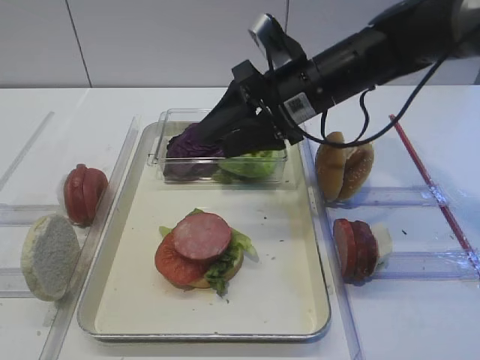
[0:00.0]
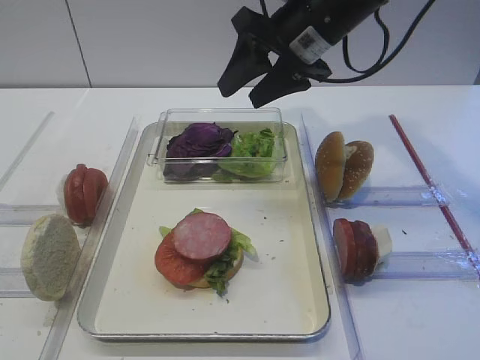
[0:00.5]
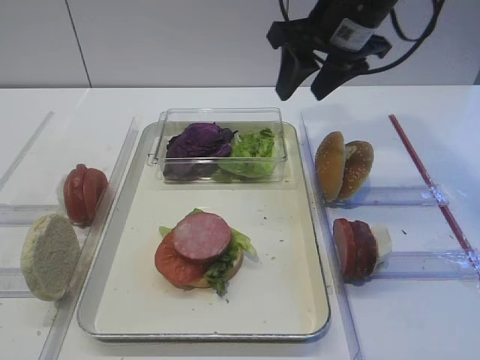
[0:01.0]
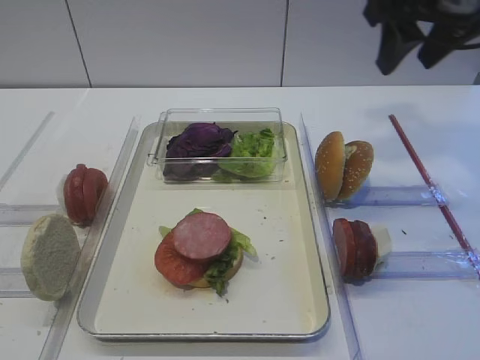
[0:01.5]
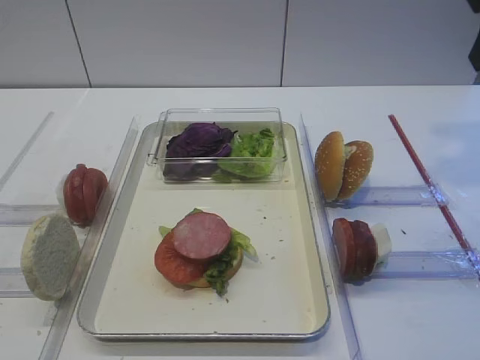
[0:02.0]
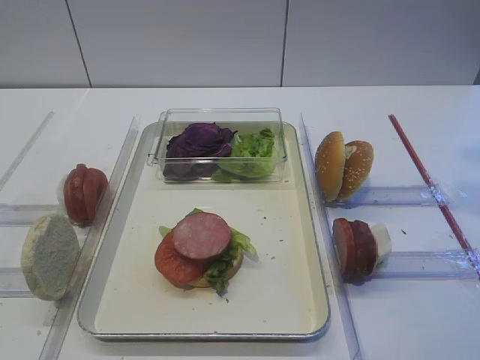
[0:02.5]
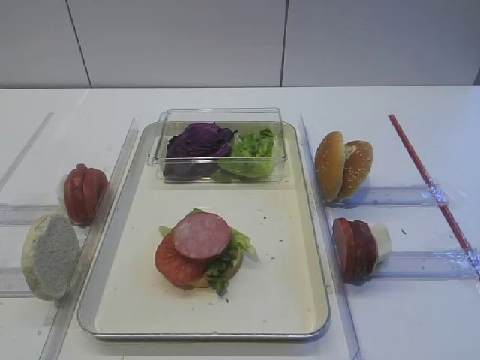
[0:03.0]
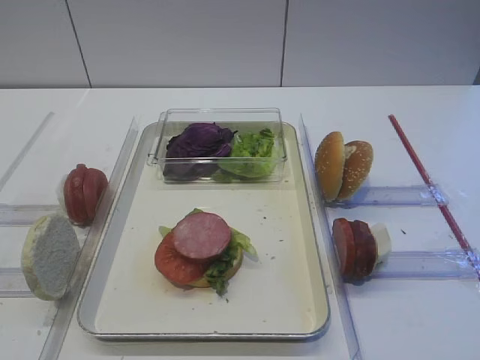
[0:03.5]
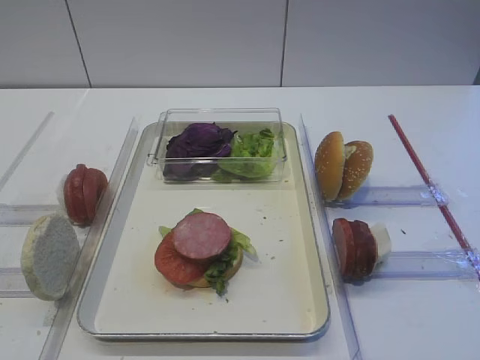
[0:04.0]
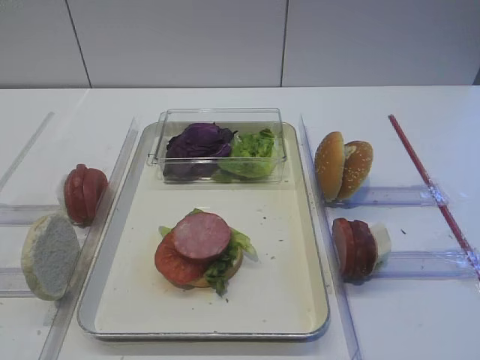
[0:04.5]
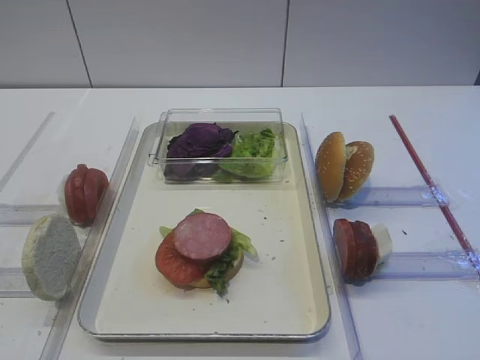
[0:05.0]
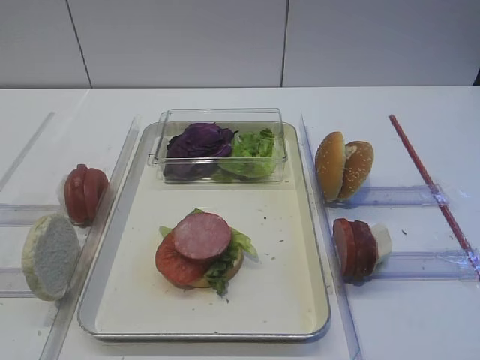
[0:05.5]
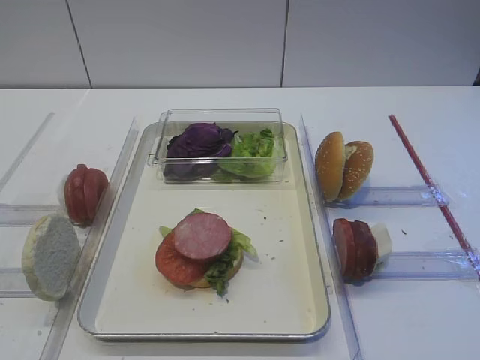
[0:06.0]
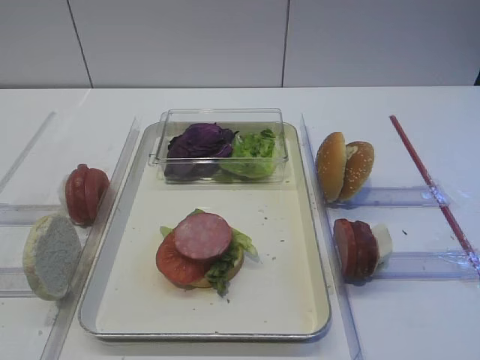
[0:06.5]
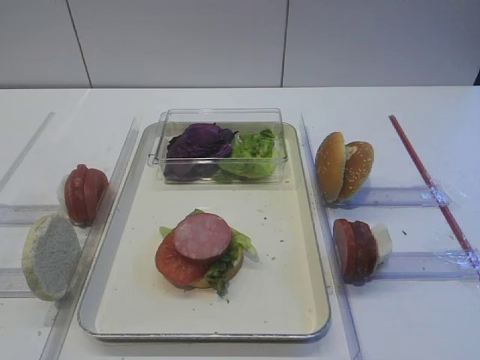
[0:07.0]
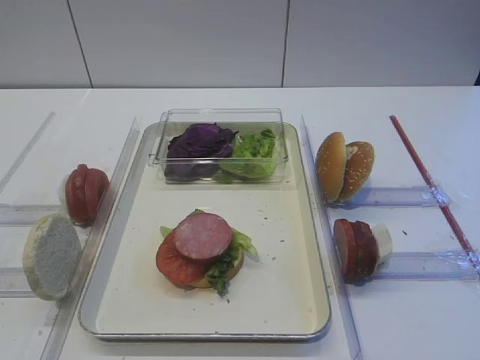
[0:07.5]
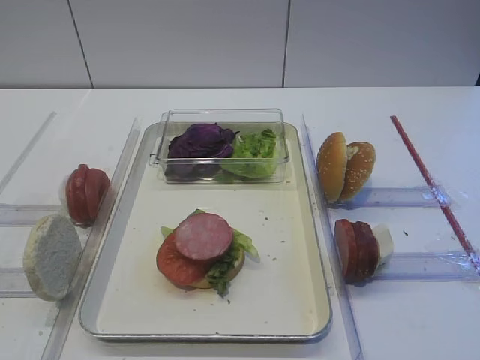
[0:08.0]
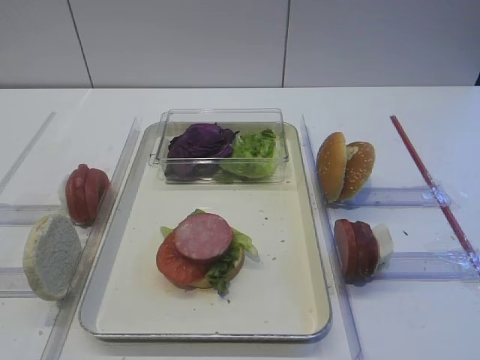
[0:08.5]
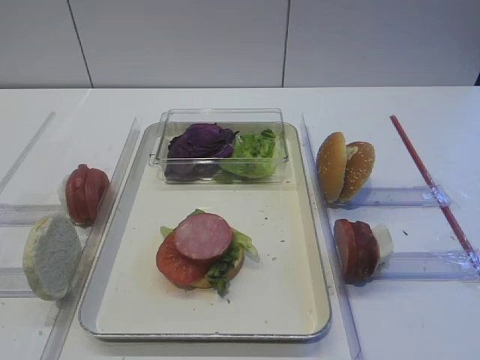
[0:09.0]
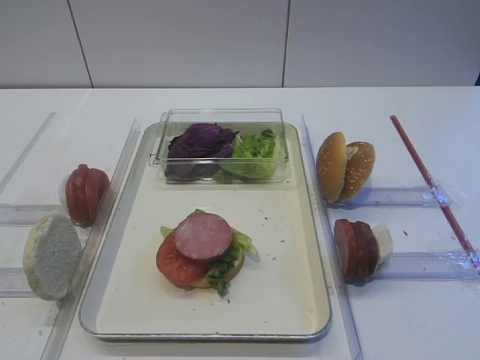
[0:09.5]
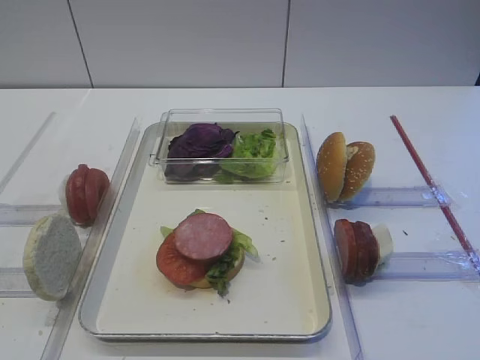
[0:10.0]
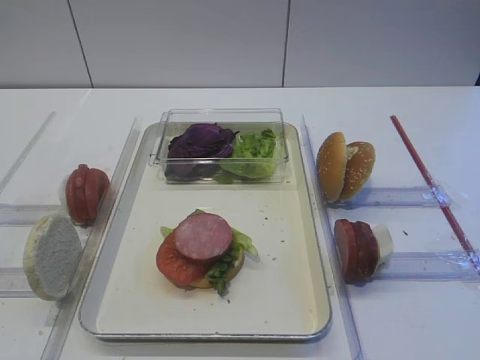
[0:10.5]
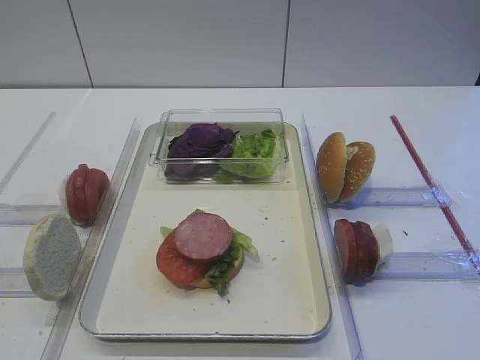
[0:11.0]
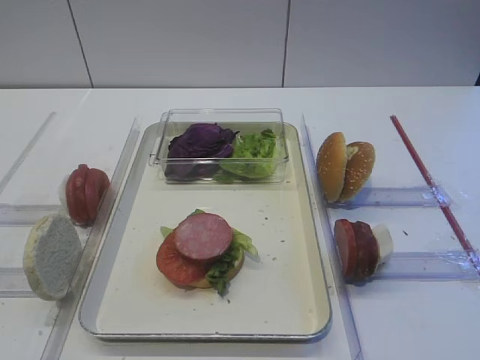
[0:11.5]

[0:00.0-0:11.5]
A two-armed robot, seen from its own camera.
0:00.0 to 0:02.0: The right gripper heads to the right, upward and backward, covering about 25 cm.
0:06.0 to 0:11.5: Both grippers stay put.

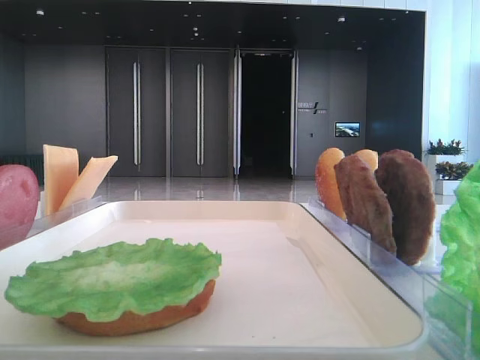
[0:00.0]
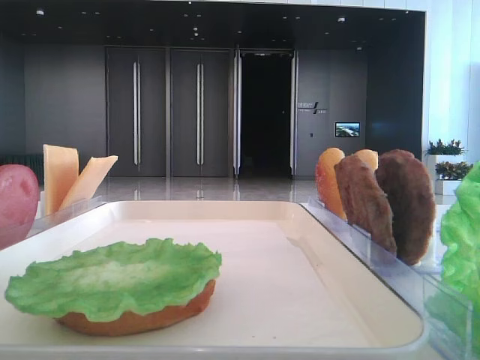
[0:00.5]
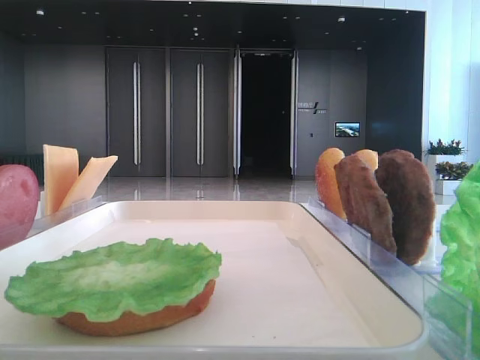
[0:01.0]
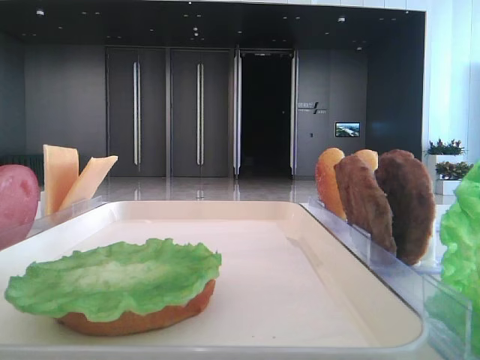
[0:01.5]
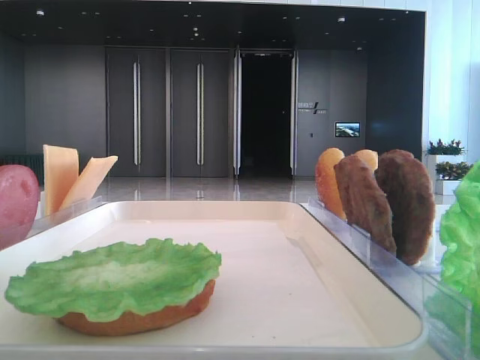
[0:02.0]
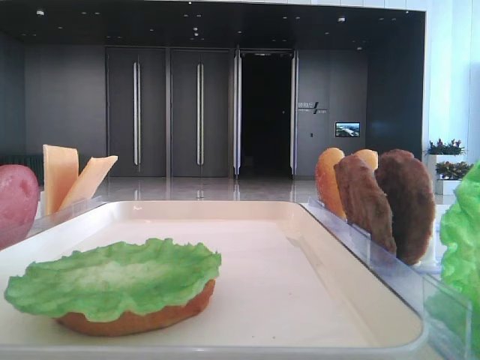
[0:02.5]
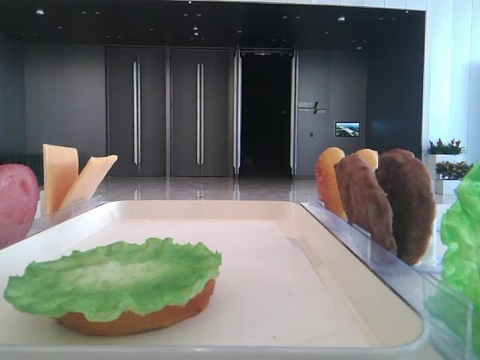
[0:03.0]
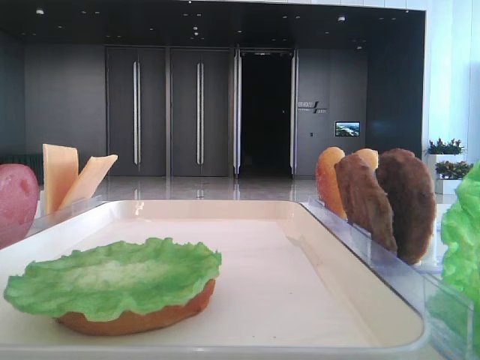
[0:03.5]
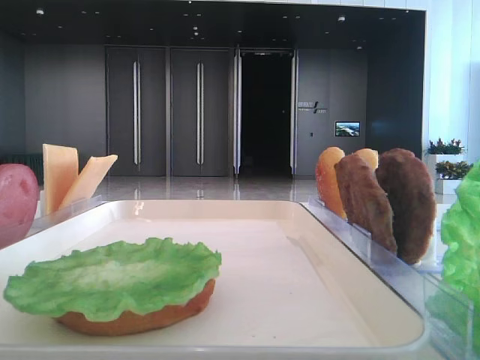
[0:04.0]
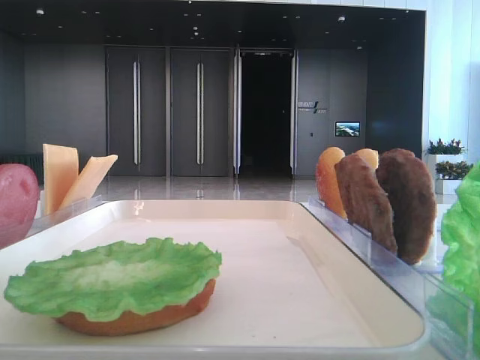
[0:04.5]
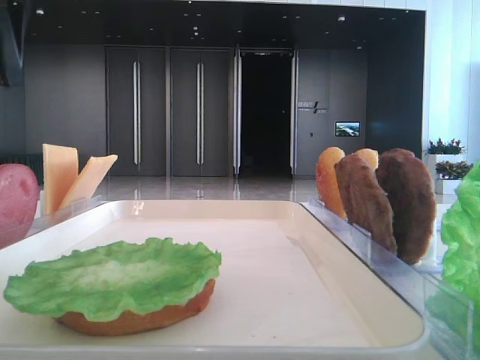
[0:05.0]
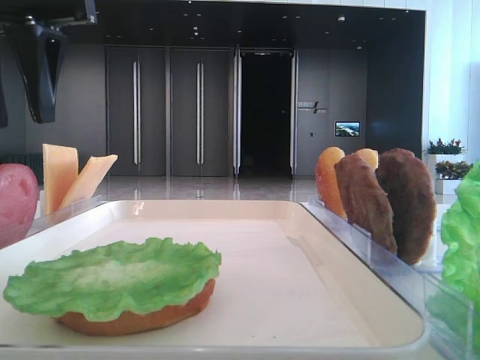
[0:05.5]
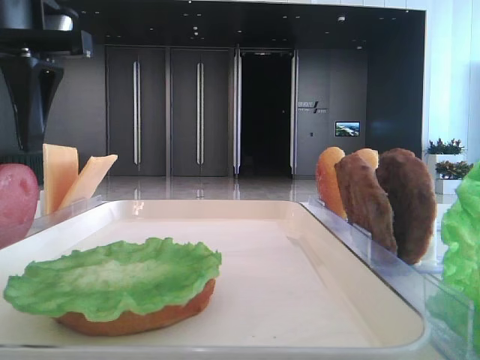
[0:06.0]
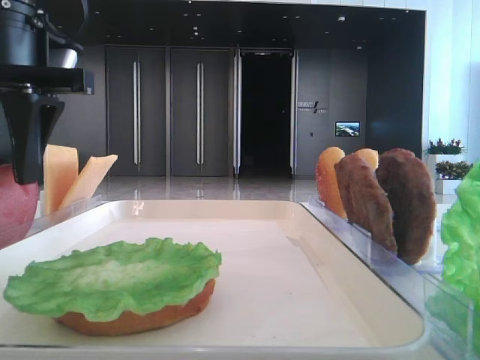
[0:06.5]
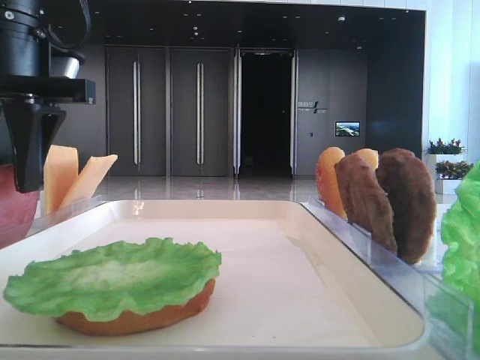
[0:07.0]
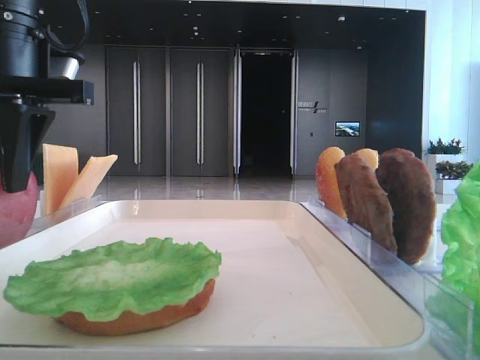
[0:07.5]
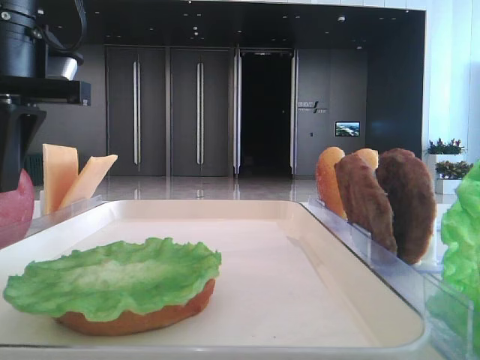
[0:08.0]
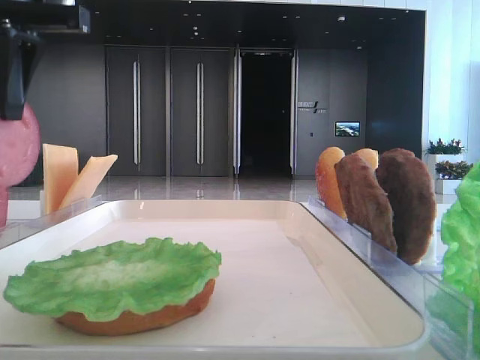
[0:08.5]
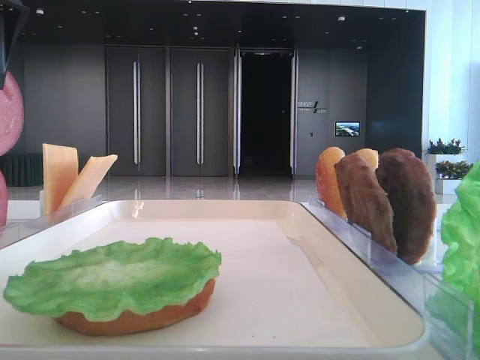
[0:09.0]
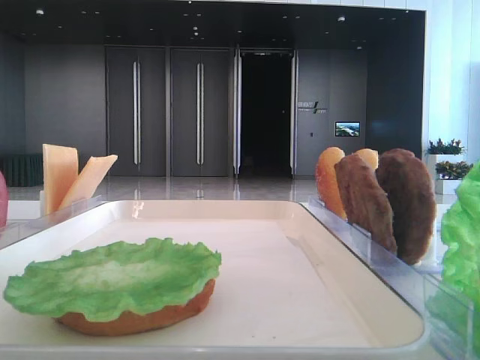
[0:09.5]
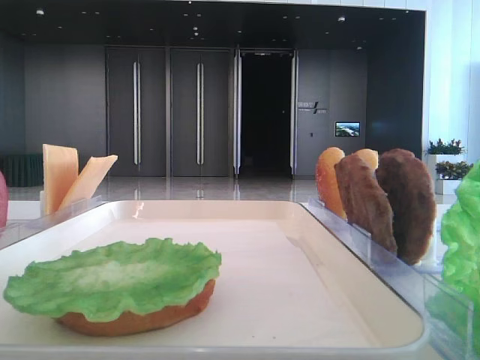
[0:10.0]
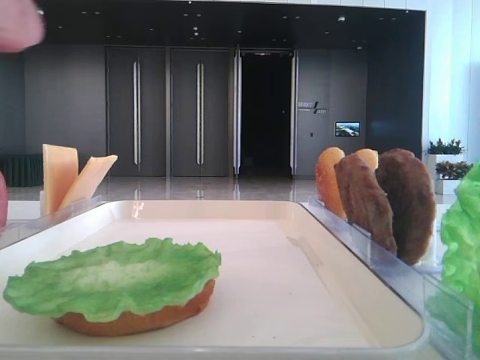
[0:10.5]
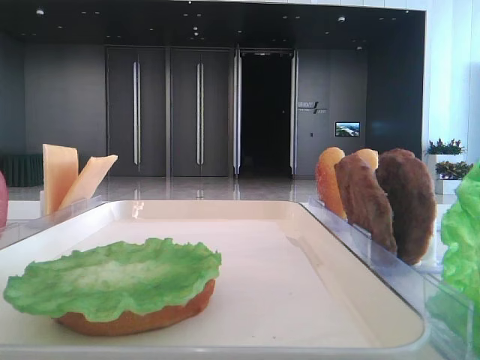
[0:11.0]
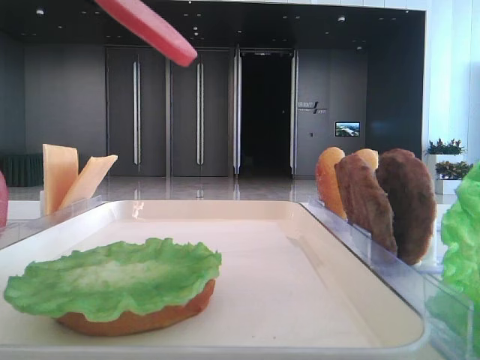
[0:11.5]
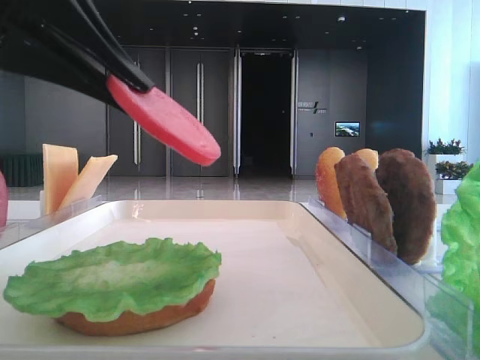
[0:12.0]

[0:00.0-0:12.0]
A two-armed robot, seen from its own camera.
Step, 0:00.0 to 0:07.5: Pick up the tomato slice with the left hand.
0:02.0 to 0:04.0: The left gripper travels forward by approximately 30 cm.
0:04.0 to 0:06.0: The left gripper moves to the right and downward, some 15 cm.
0:06.0 to 0:08.0: The left gripper closes up.
0:08.0 to 0:10.0: The left gripper shifts roughly 20 cm backward and upward.
0:10.0 to 0:12.0: The left gripper travels downward and to the right by roughly 15 cm.

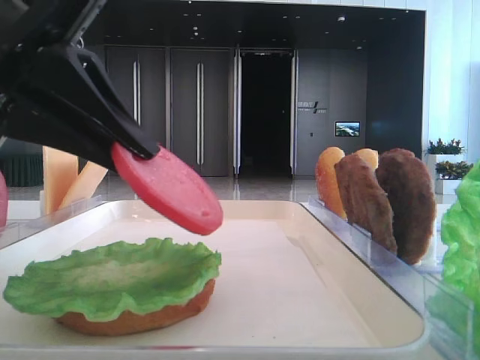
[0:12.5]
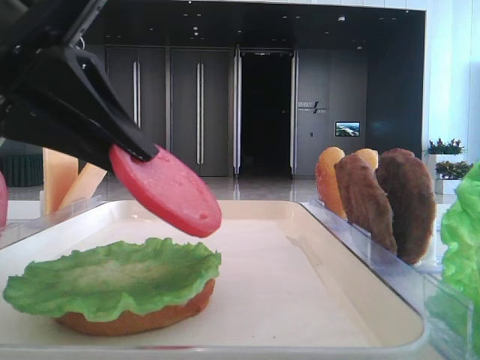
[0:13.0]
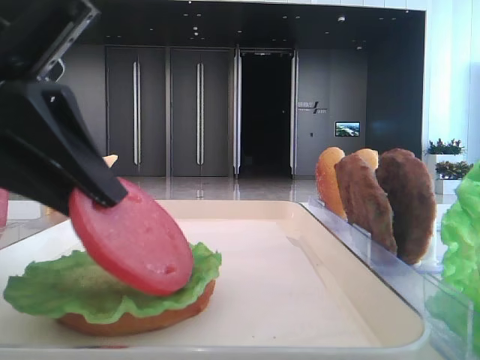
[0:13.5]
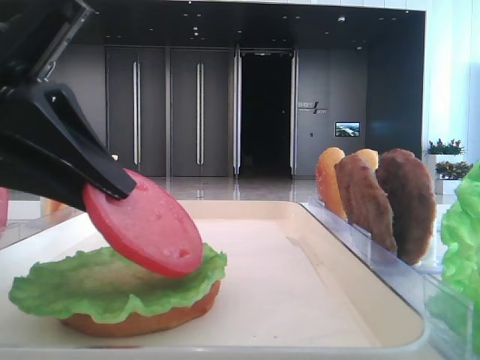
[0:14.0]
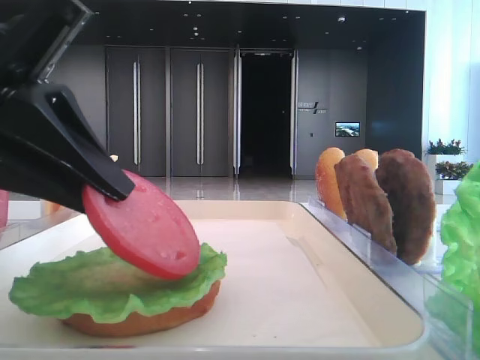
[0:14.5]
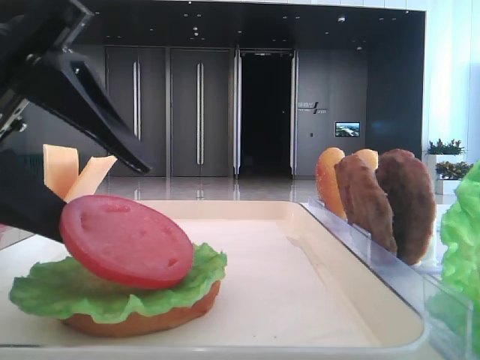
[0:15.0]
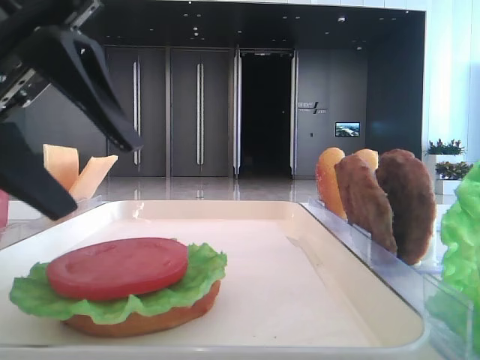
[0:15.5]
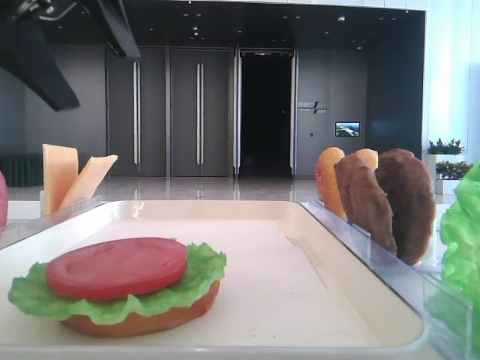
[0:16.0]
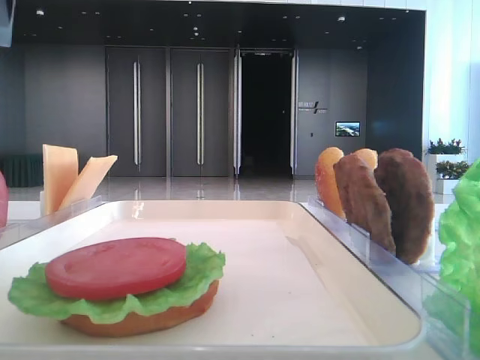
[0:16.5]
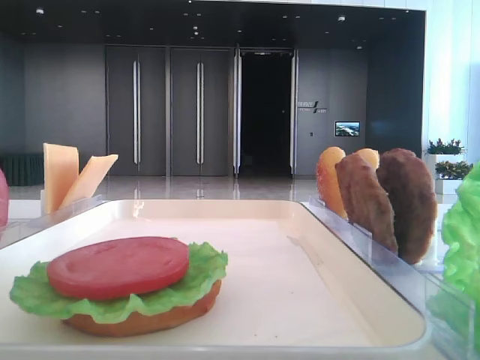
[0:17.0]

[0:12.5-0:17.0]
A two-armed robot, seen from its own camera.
Step, 0:12.5 to 0:15.0: Place the tomato slice on the lettuce leaf with the left hand.
0:12.5 to 0:14.5: The grippers make only small movements.
0:14.5 to 0:17.0: The left gripper is displaced upward, to the left and forward by some 25 cm, and opens its fingers.
